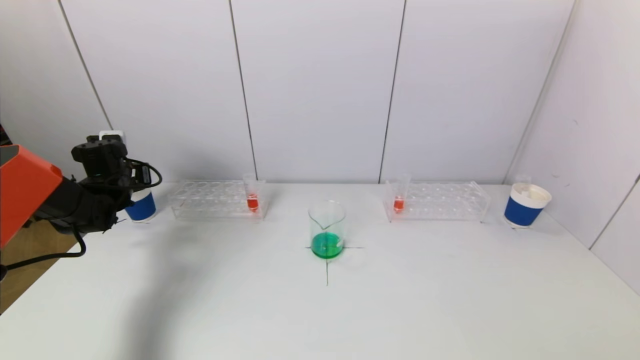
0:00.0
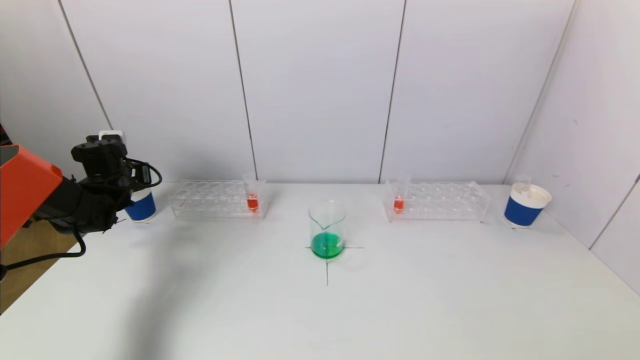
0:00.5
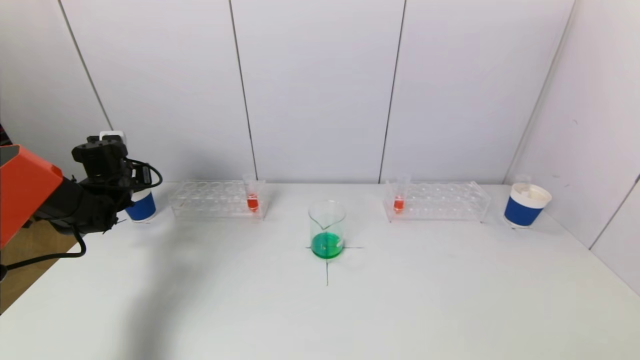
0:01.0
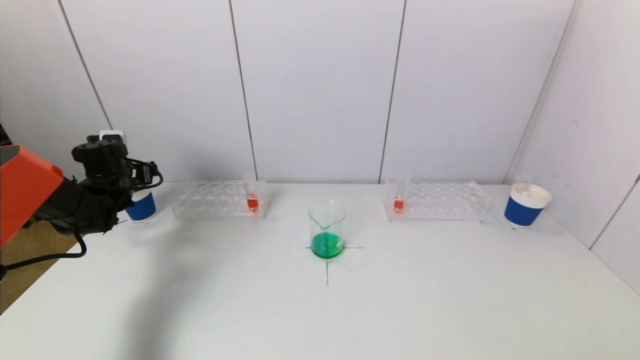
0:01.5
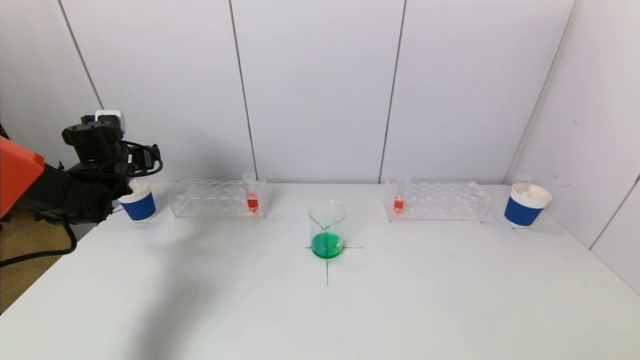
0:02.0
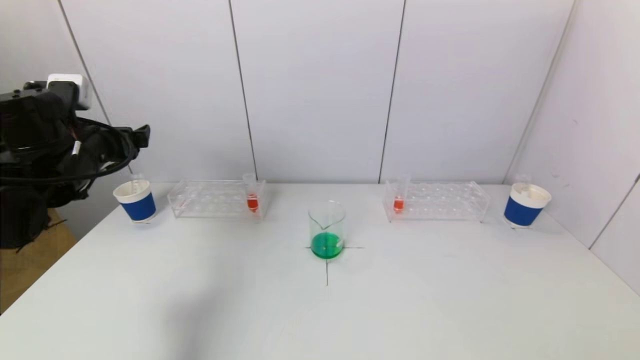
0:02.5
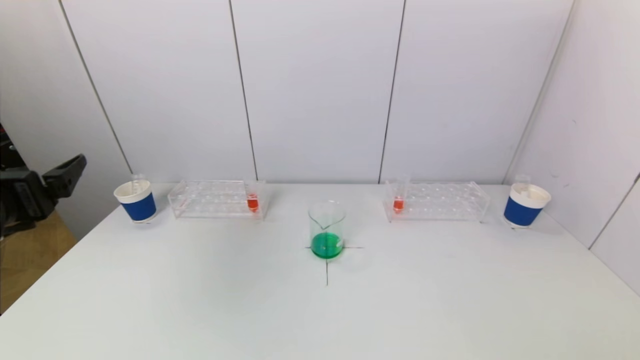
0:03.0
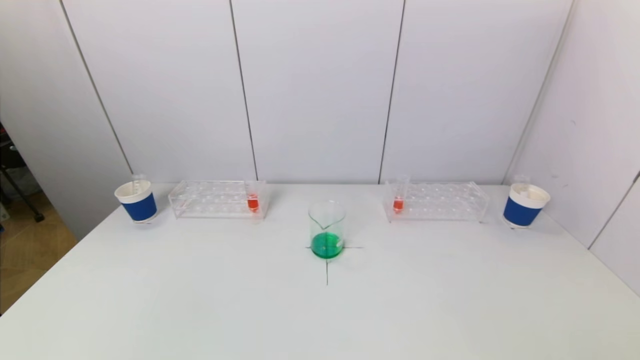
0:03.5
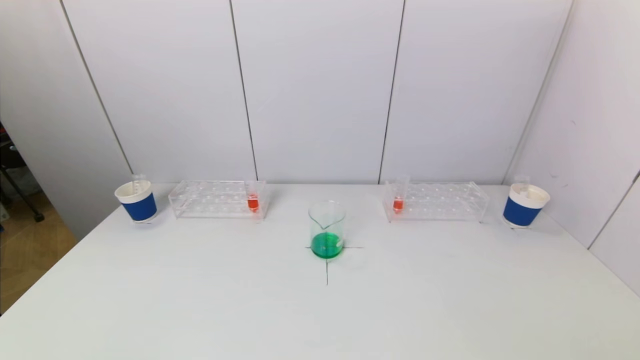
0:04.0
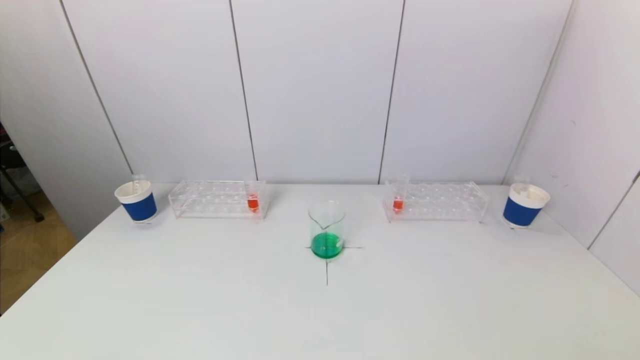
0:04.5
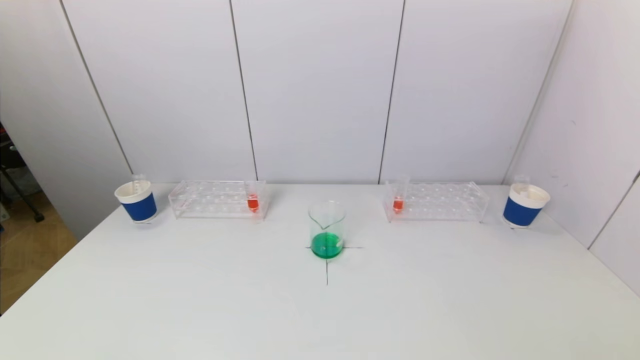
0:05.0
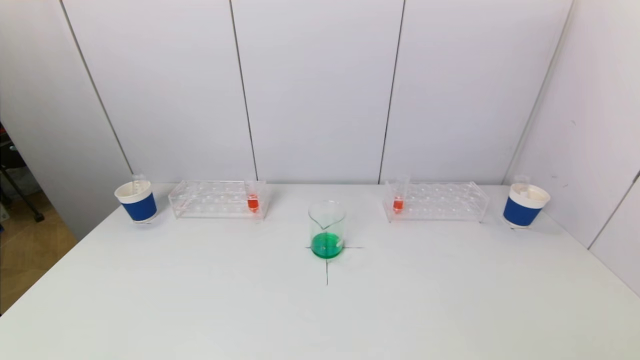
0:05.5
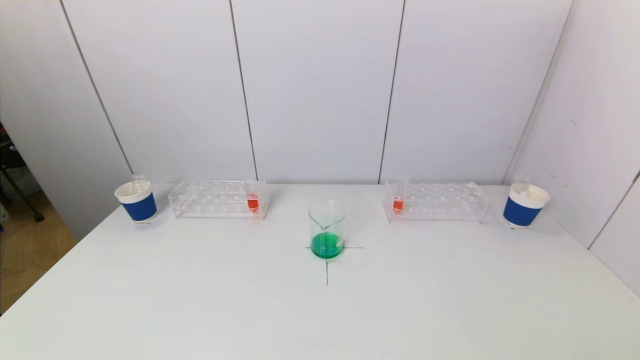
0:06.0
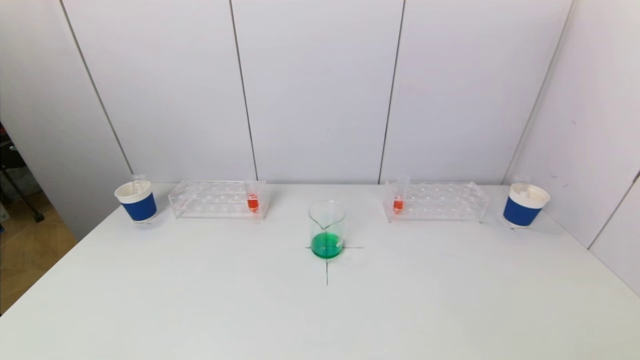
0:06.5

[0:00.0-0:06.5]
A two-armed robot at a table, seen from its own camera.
Task of the whole recording: pick up a test tube with pigment on left test tube rack and a test tube with pigment on right test tube rack by grippers and pour them into the beaker.
0:00.0 to 0:02.0: The left gripper ends up some 5 cm from where it was, and opens up.
0:02.0 to 0:04.5: The left gripper moves backward, some 50 cm.
